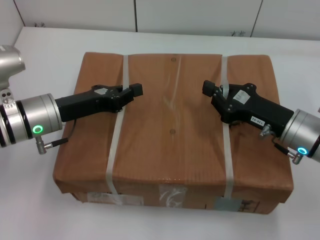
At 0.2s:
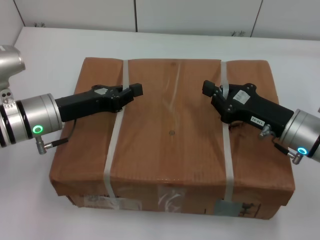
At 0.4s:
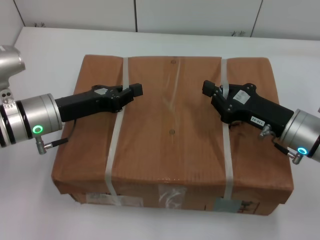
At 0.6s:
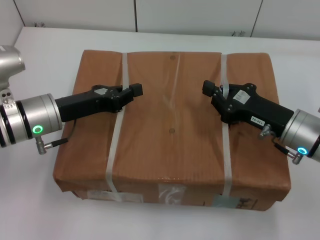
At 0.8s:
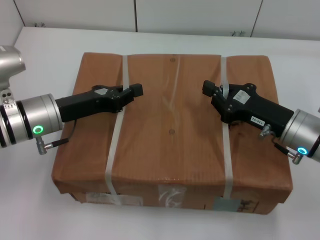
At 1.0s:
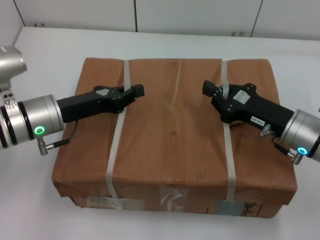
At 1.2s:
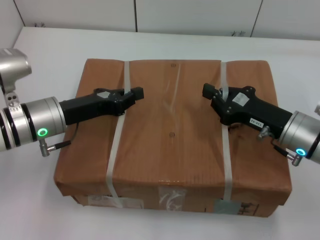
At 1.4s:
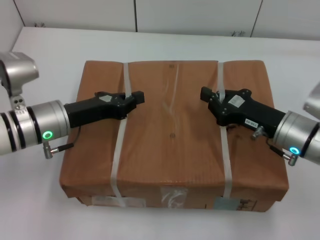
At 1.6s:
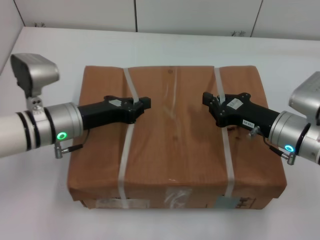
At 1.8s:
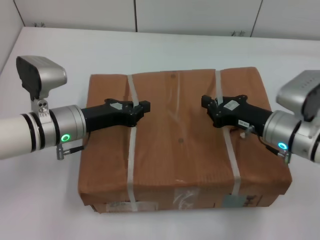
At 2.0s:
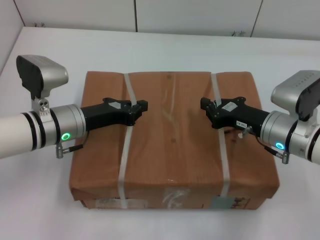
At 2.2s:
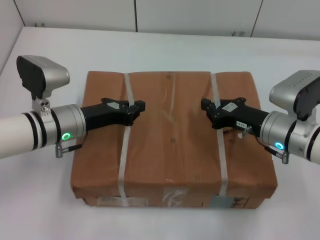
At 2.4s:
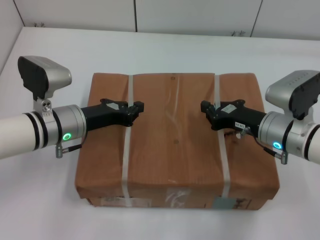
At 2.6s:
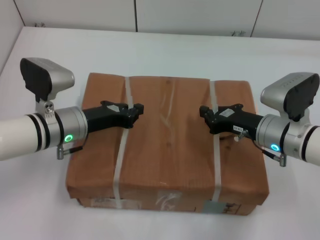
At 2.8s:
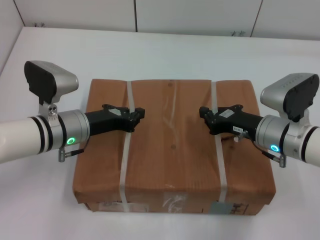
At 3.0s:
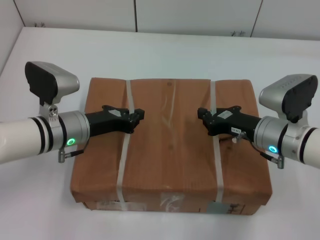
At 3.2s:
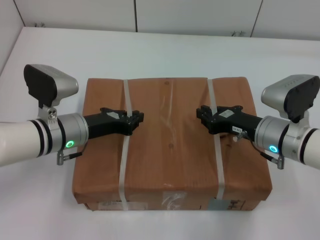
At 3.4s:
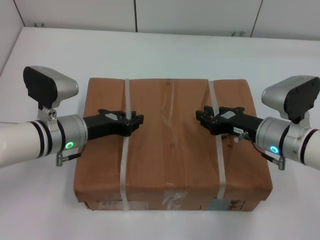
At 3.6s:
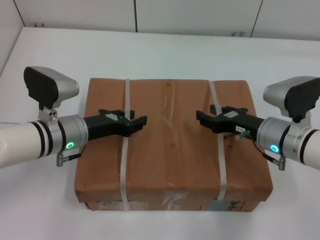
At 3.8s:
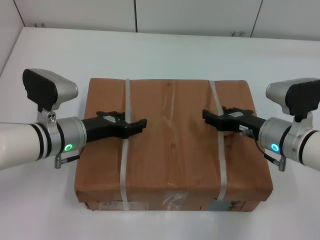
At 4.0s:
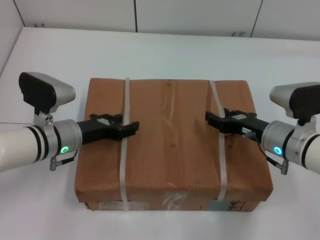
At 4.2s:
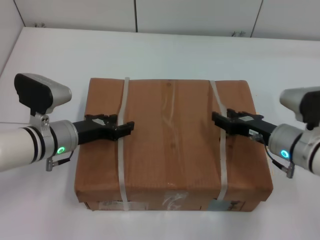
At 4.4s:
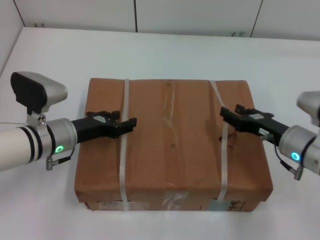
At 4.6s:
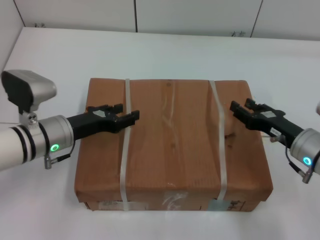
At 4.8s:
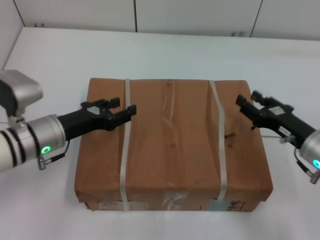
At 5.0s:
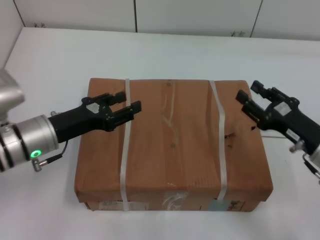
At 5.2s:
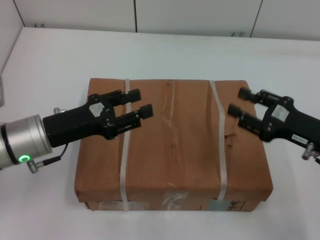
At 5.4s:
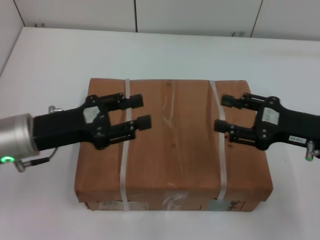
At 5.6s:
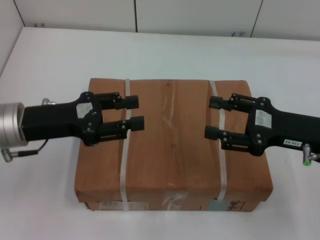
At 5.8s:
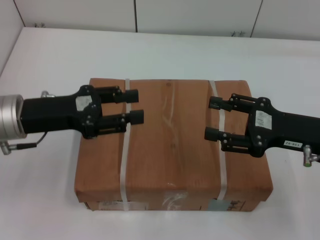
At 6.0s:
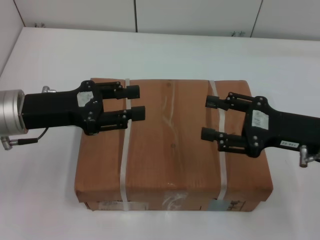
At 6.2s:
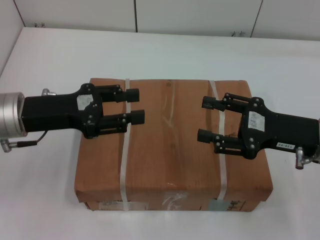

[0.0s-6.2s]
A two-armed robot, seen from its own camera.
Task of the whole recording: place the box on the table with both arms.
Step, 0.0s to 2.8s: Place the box on the table with left gripper.
Step, 0.0s to 2.8s: Place the box on the table with right gripper.
Step, 3.0s to 4.4s: Loosen the box on the table with left gripper.
Step, 3.0s to 4.4s: Loosen the box on the table with right gripper.
3.2s to 4.6s: The right gripper moves to the right, some 5 cm, and opens its fingers; the left gripper opens.
4.6s to 6.2s: The two grippers go roughly 10 cm upward.
